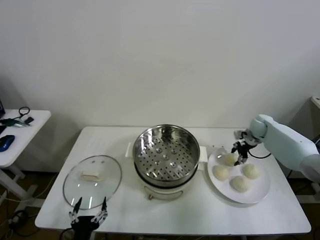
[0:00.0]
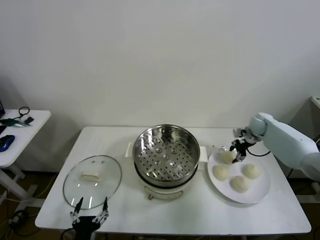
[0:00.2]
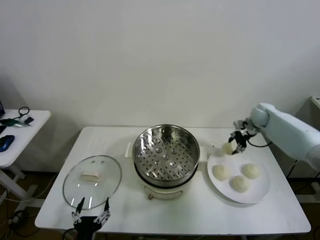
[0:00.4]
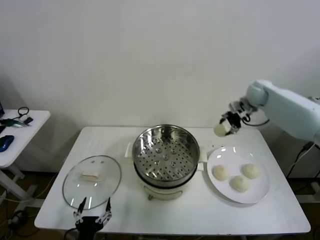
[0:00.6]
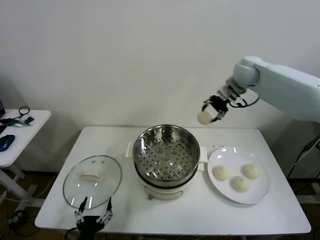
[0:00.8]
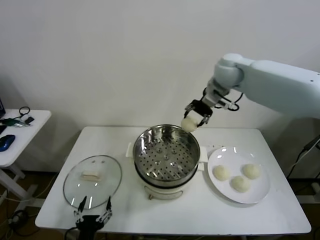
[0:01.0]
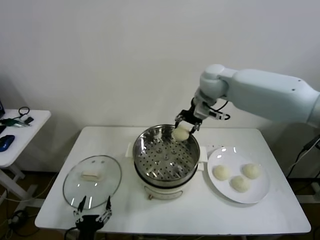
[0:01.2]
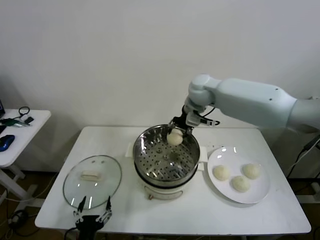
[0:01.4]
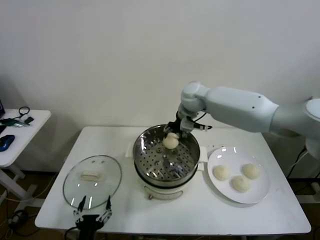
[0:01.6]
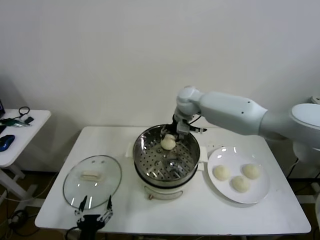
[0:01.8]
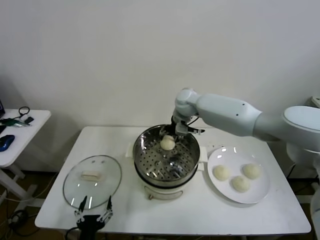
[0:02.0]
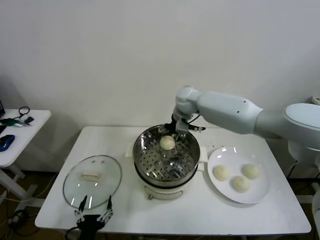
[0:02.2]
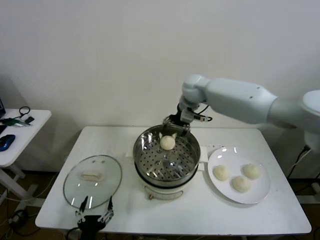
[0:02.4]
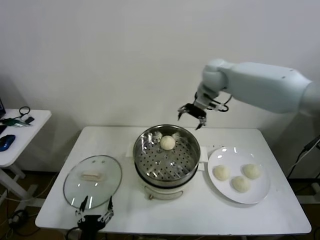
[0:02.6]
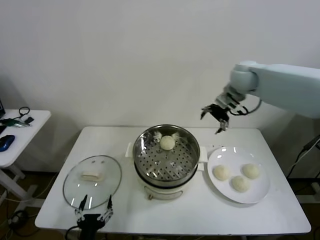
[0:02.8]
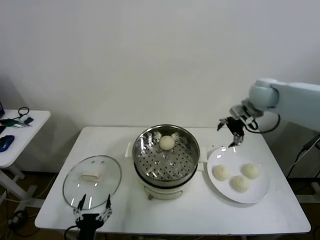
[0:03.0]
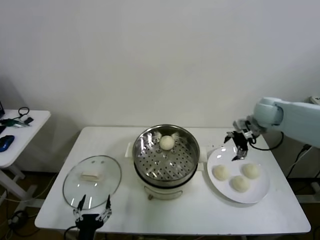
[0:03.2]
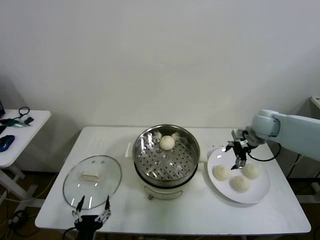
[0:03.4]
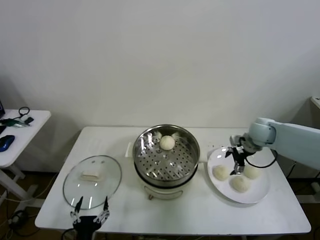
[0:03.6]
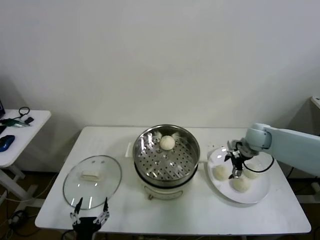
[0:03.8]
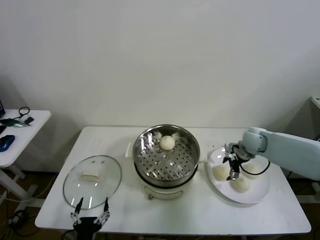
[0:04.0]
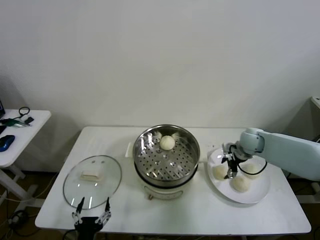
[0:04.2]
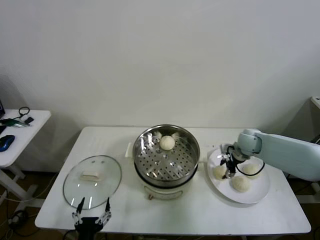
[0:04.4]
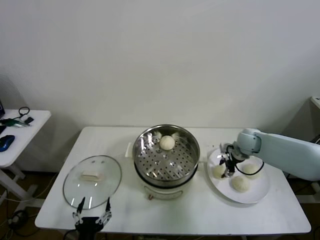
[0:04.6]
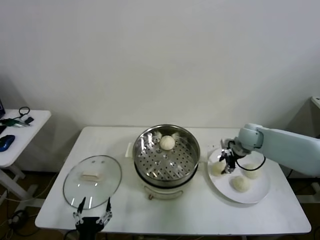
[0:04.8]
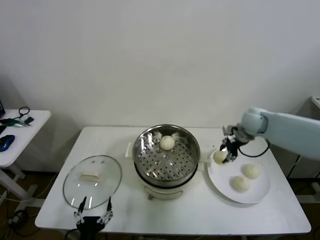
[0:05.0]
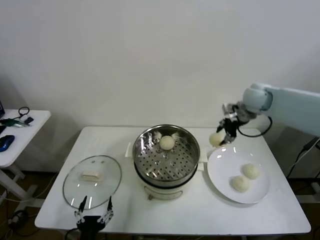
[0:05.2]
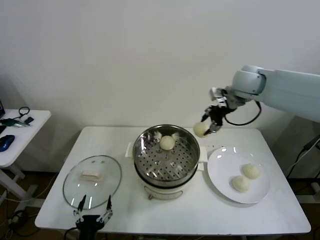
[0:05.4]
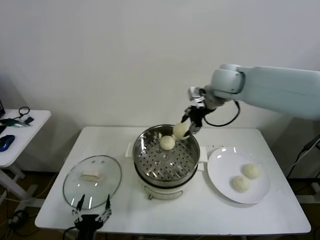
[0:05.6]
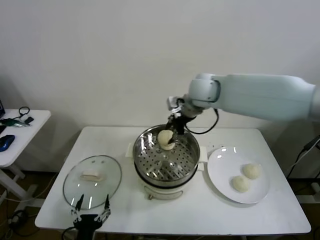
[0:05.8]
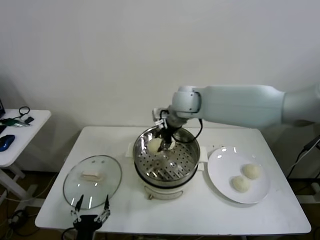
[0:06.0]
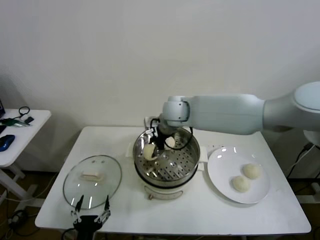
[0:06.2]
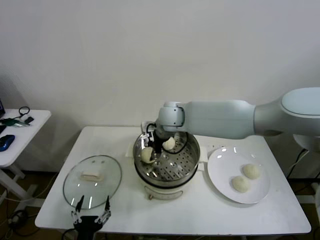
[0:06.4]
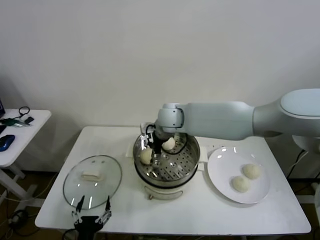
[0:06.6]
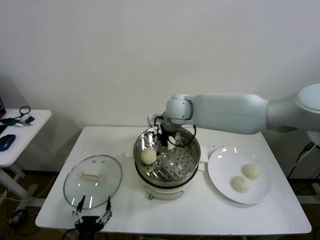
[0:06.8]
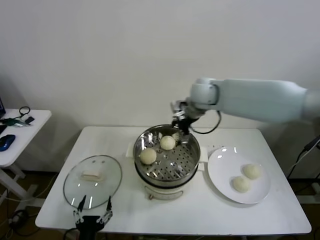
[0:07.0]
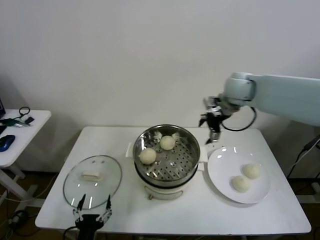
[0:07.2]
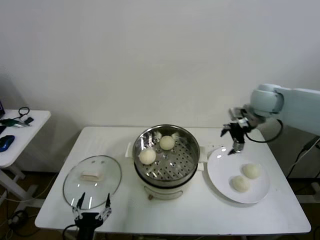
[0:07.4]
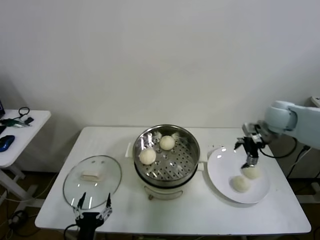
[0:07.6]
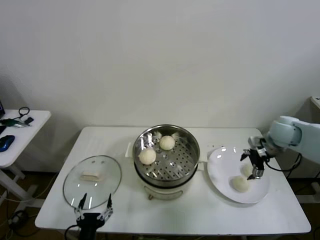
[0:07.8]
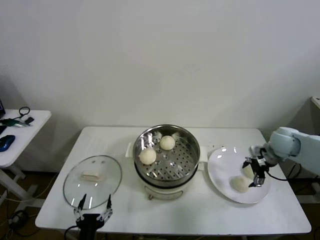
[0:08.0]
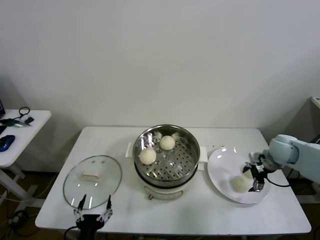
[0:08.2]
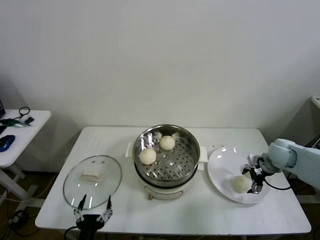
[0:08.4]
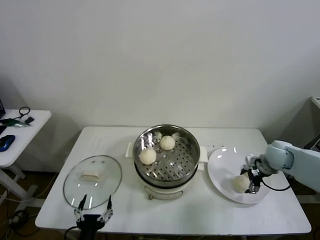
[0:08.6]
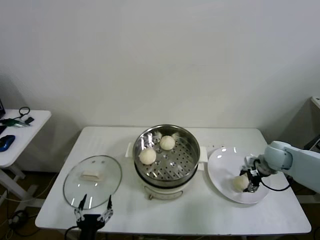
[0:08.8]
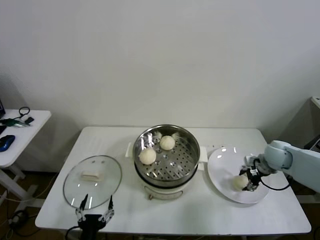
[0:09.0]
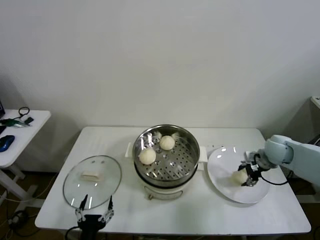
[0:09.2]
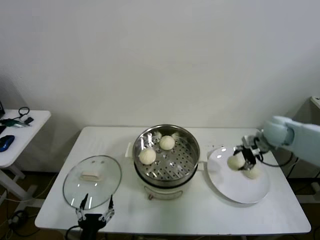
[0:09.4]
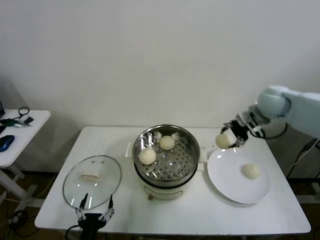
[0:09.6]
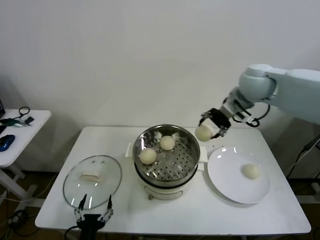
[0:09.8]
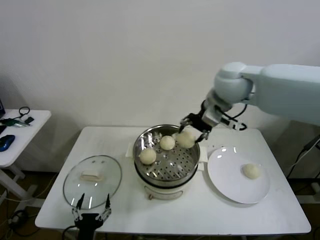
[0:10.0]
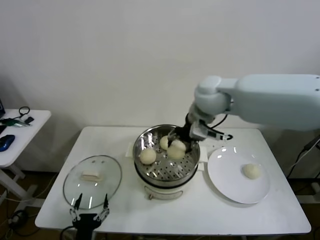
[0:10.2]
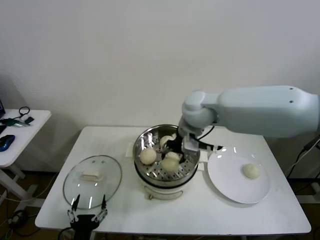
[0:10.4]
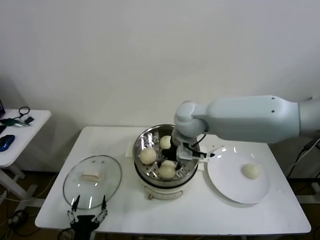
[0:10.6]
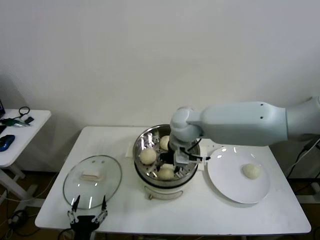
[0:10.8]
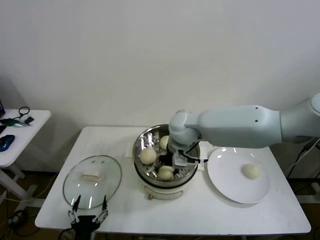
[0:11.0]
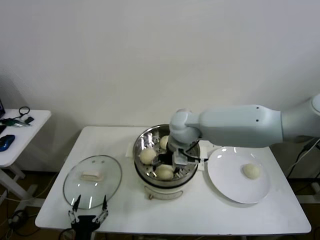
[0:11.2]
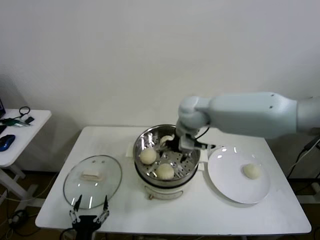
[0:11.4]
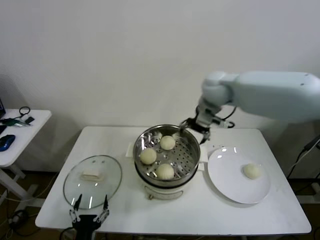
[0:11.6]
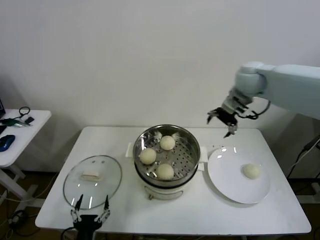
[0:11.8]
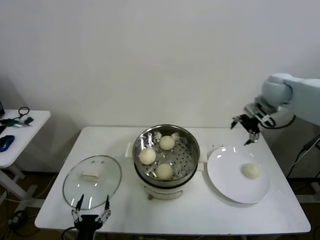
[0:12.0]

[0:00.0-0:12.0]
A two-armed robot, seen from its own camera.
Task of the whole recording: take steamed baozi put them in steamer then cover it.
Step, 0:00.2 to 0:02.2: Place the baozi on the steamer with right gripper.
Step, 0:02.4 to 0:04.6: Grasp the baozi in the plate with right gripper.
Step, 0:04.8 to 0:06.6: Place the baozi on the steamer with right gripper.
Step, 0:06.8 to 0:09.0: Grasp the baozi in the plate with right gripper.
Step, 0:09.2 to 0:11.2: Place the baozi on the steamer with right gripper.
0:00.0 to 0:01.6: The right gripper is displaced to the left and upward by about 35 cm.
0:01.6 to 0:03.0: The right gripper shifts roughly 25 cm to the right, and opens.
0:03.0 to 0:04.4: The right gripper travels downward by roughly 15 cm, and closes its fingers.
0:04.4 to 0:06.0: The right gripper shifts about 30 cm to the left and upward.
0:06.0 to 0:07.6: The right gripper heads to the right, covering some 30 cm, and opens up.
0:07.6 to 0:09.0: The right gripper heads downward, covering approximately 15 cm, and closes.
0:09.0 to 0:10.4: The right gripper moves to the left and upward, about 35 cm.
0:10.4 to 0:12.0: The right gripper goes about 30 cm to the right, and opens its fingers.

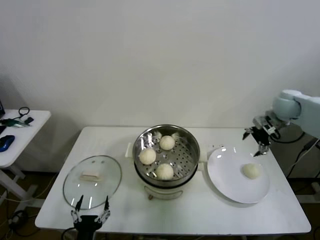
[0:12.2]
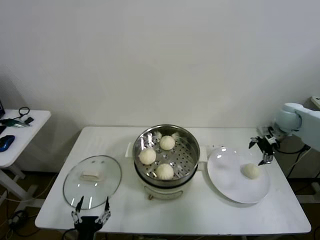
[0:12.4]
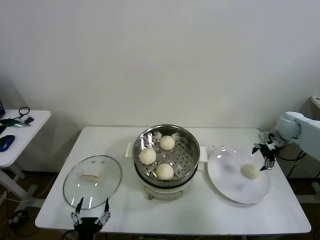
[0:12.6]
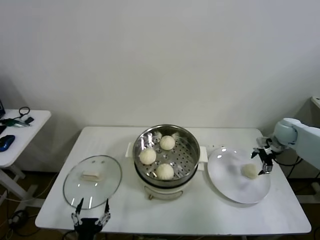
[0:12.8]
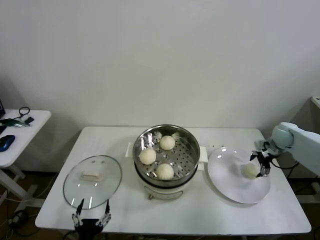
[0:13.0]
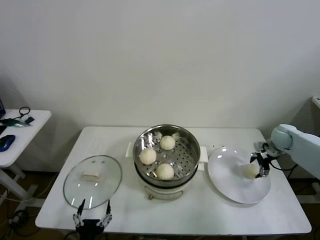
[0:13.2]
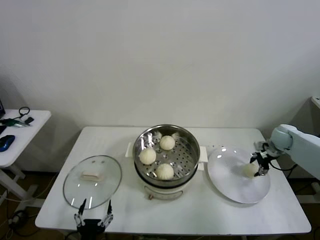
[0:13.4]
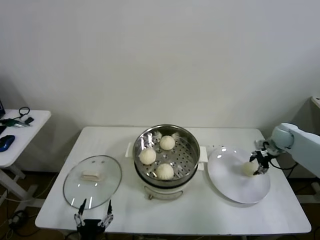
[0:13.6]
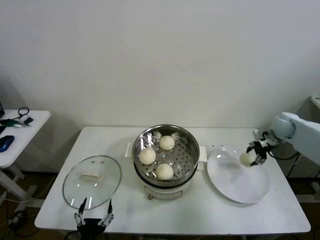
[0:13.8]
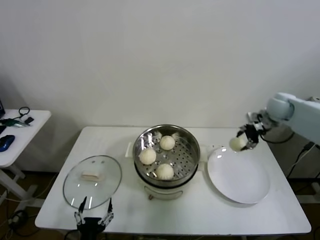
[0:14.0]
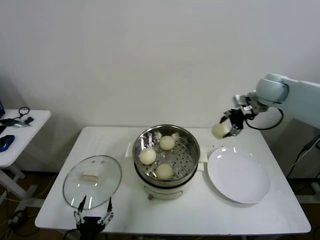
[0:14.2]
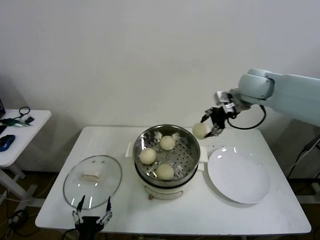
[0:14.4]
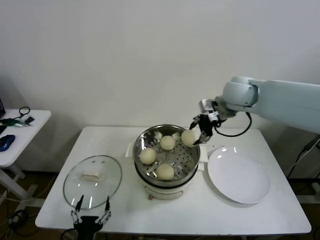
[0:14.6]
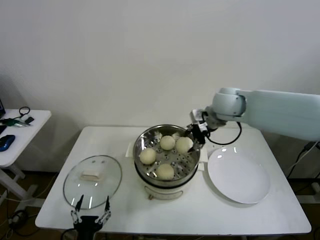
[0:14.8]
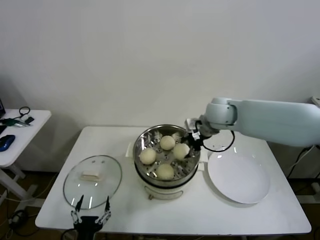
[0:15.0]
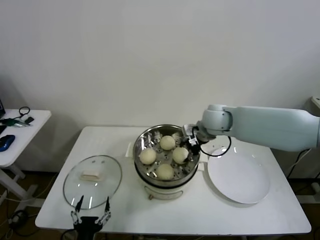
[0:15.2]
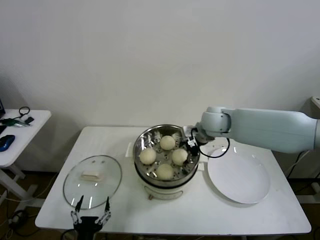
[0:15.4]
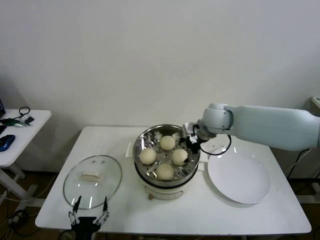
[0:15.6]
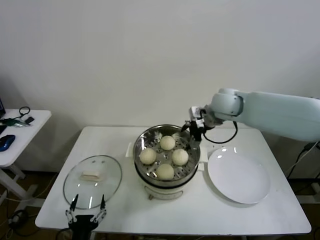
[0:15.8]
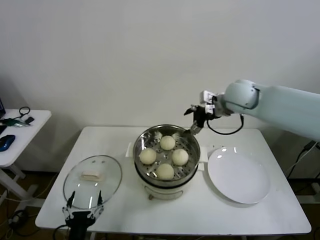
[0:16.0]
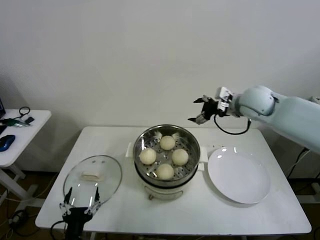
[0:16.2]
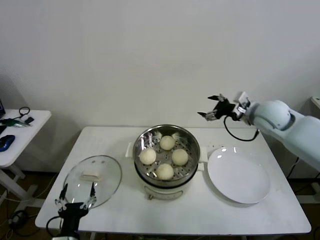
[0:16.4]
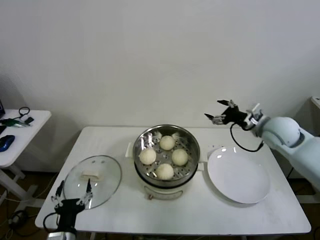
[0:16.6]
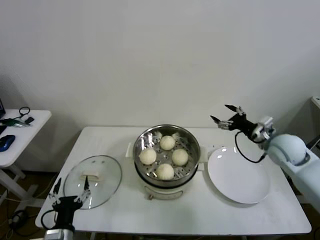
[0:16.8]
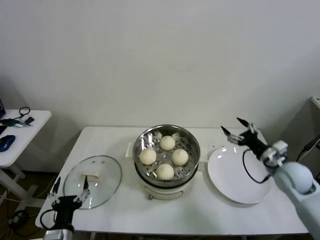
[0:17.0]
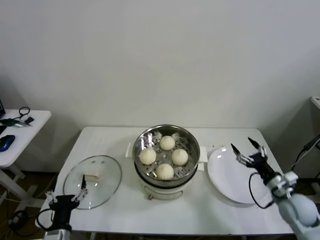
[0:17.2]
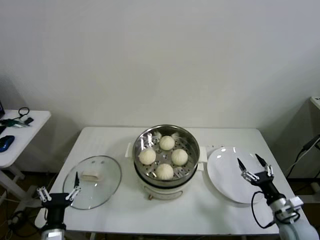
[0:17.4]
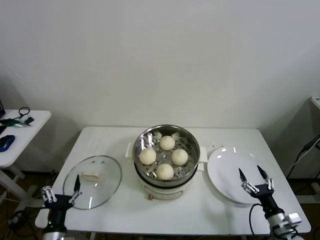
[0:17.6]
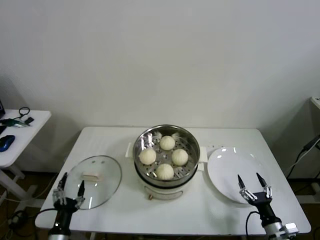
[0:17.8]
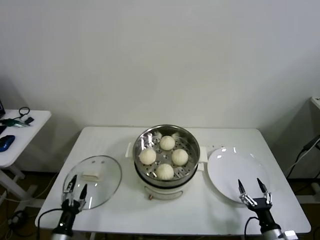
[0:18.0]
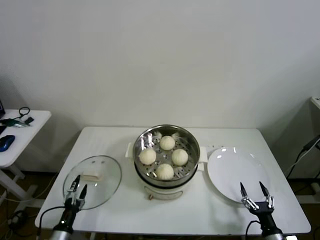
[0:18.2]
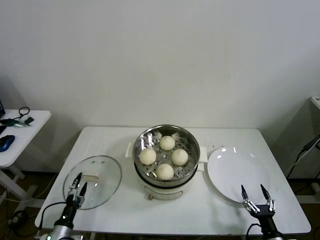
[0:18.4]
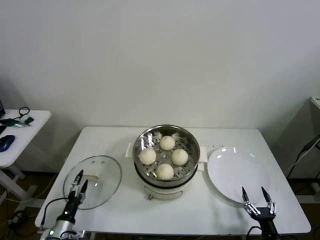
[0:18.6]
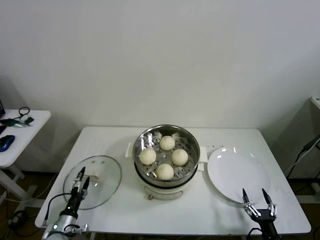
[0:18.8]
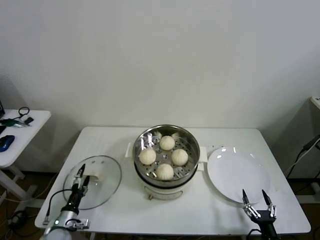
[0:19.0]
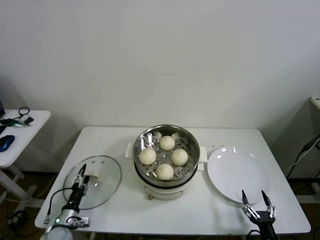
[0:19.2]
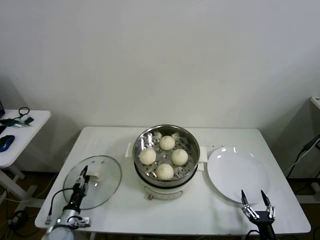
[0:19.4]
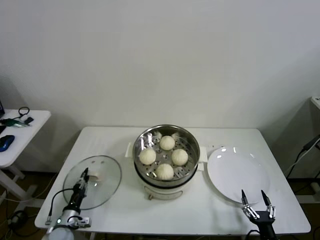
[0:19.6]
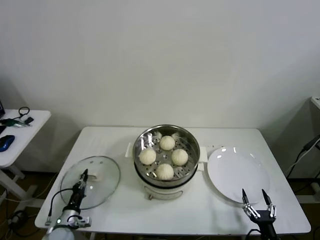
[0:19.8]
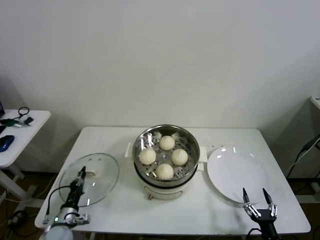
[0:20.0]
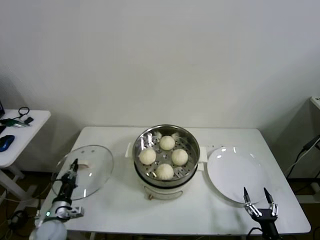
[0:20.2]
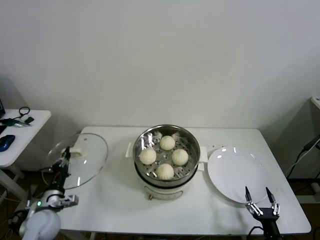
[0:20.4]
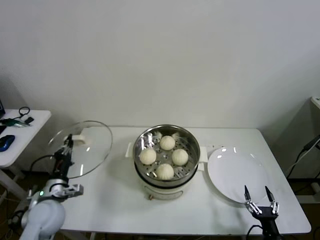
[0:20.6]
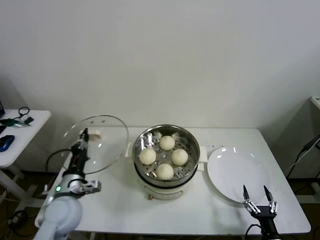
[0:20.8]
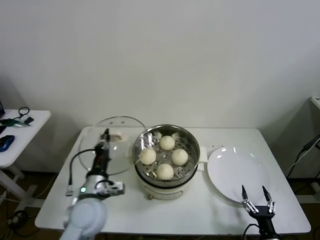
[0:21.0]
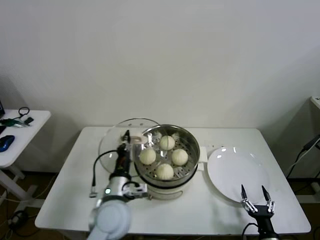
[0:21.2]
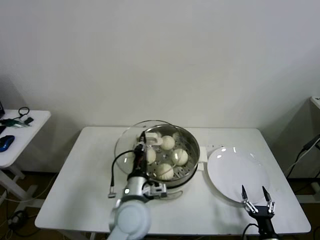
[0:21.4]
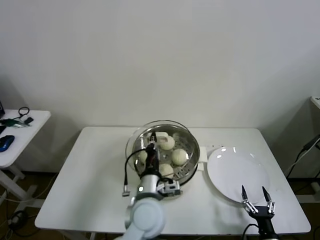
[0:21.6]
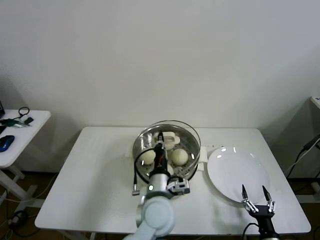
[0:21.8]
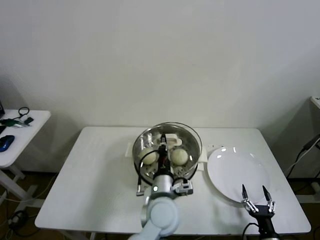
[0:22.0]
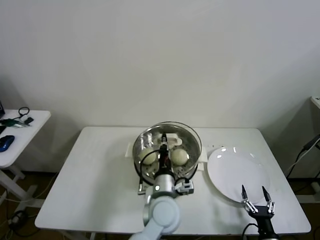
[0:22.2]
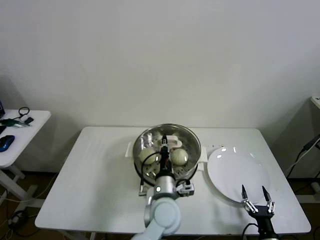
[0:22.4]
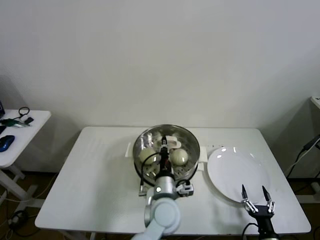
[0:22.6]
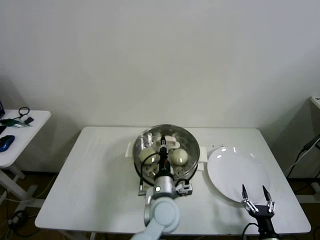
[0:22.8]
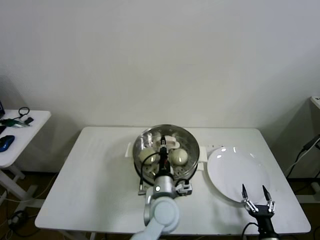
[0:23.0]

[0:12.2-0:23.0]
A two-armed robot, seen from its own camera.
Task of the whole recording: take steamed baozi put them in steamer then cover it.
Step, 0:12.2 to 0:13.6: Grasp the baozi in the plate with right gripper.
Step, 0:13.8 to 0:15.4: Place the baozi on the steamer with right gripper.
Step, 0:15.8 to 0:19.8: Grasp the pot lid with left gripper.
0:12.2 to 0:13.8: The right gripper is displaced downward by roughly 10 cm, and closes up.
0:13.8 to 0:15.2: The right gripper heads to the left, covering about 30 cm.
0:15.2 to 0:16.8: The right gripper goes approximately 20 cm to the right, and opens up. Meanwhile the left gripper ends up some 5 cm from where it was.
0:16.8 to 0:18.4: The left gripper is displaced downward and to the left by about 15 cm. The right gripper is displaced backward and downward by some 40 cm.
0:18.4 to 0:20.0: The left gripper moves forward, some 5 cm, and closes its fingers.
0:20.0 to 0:21.4: The left gripper travels to the right and upward by some 35 cm.
0:21.4 to 0:23.0: The left gripper heads to the right, covering approximately 10 cm.
